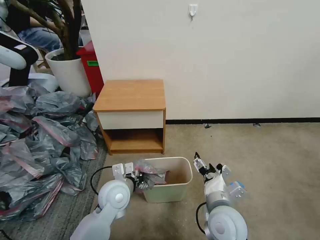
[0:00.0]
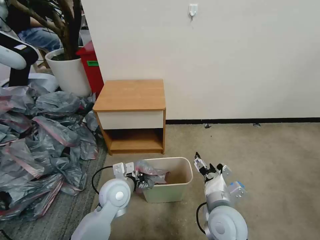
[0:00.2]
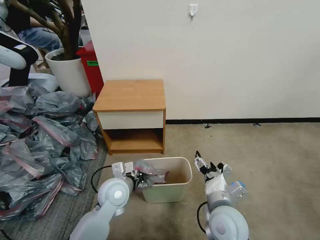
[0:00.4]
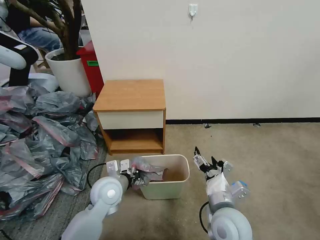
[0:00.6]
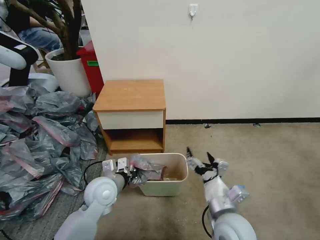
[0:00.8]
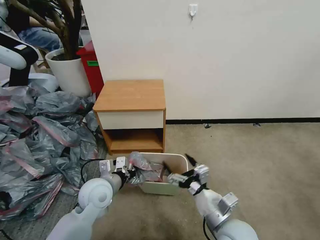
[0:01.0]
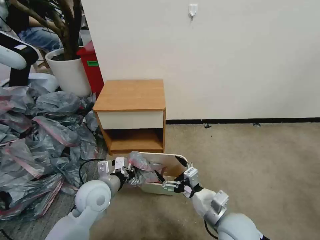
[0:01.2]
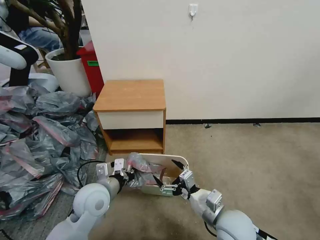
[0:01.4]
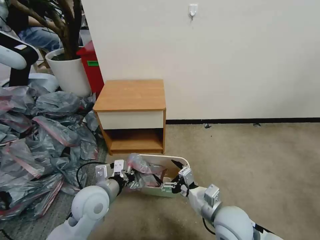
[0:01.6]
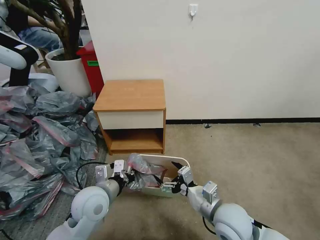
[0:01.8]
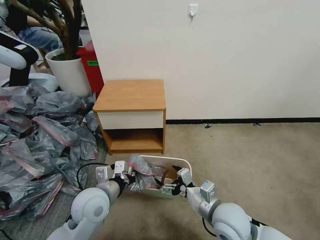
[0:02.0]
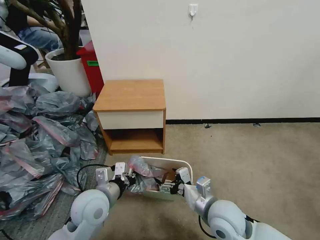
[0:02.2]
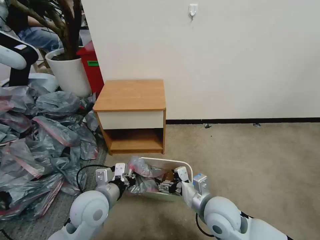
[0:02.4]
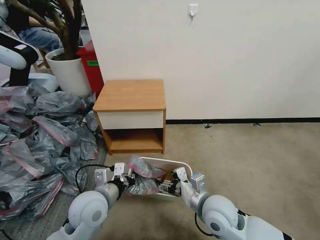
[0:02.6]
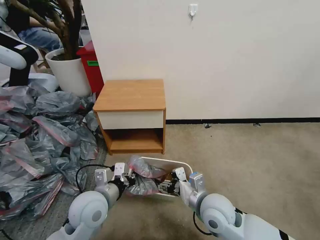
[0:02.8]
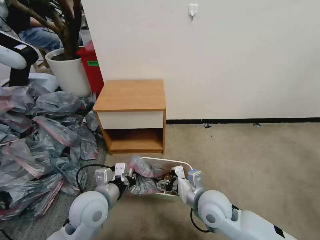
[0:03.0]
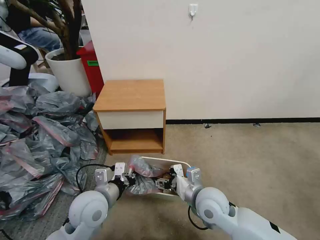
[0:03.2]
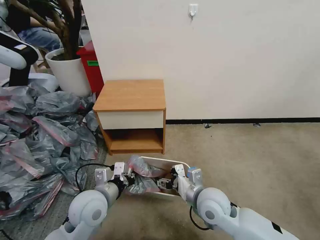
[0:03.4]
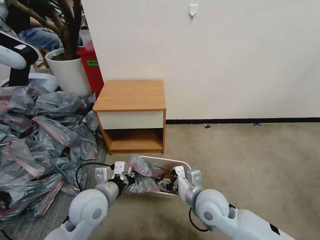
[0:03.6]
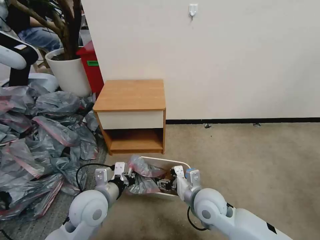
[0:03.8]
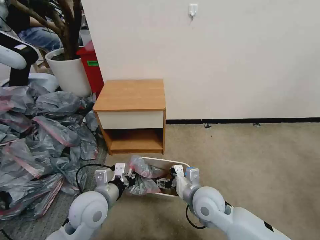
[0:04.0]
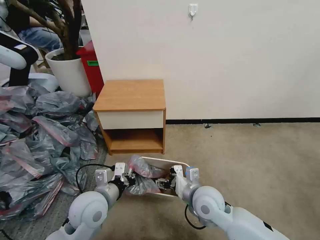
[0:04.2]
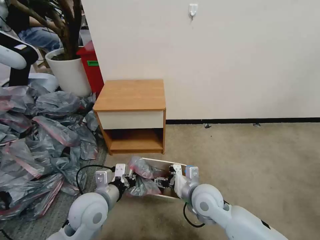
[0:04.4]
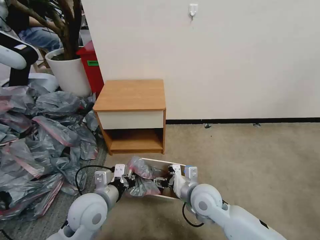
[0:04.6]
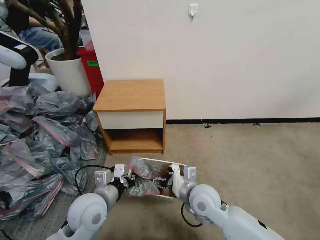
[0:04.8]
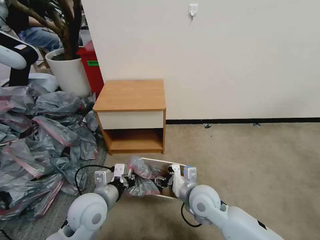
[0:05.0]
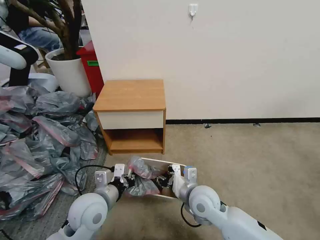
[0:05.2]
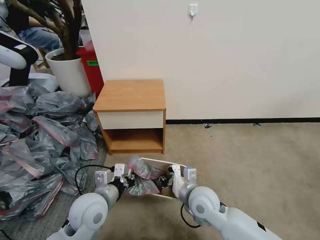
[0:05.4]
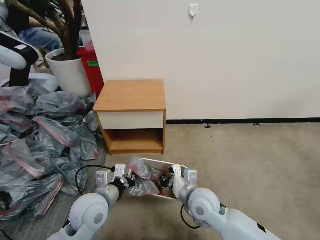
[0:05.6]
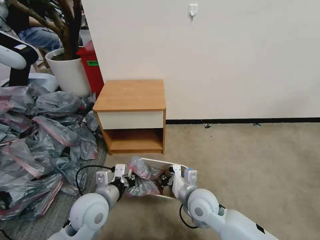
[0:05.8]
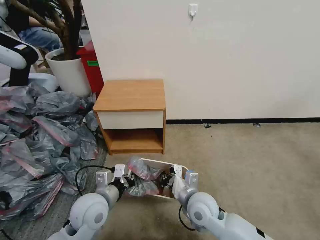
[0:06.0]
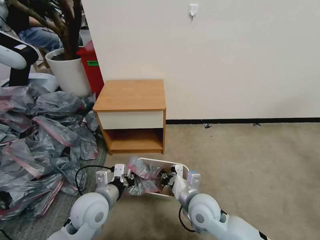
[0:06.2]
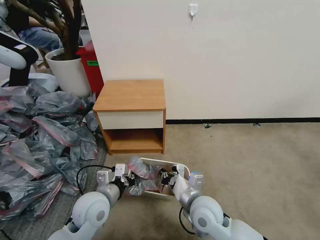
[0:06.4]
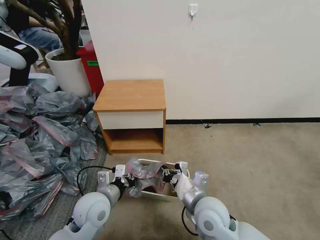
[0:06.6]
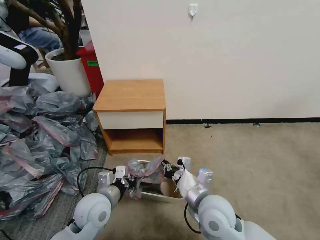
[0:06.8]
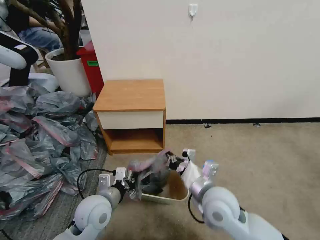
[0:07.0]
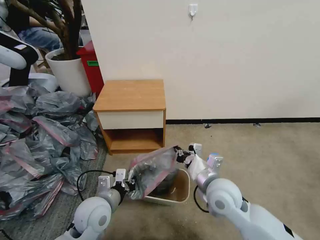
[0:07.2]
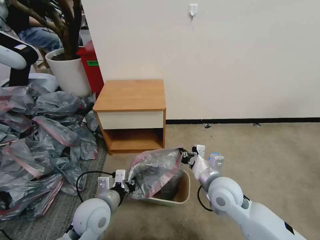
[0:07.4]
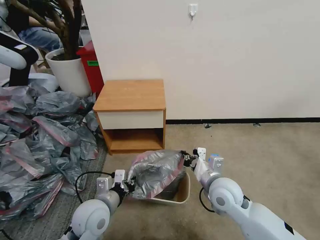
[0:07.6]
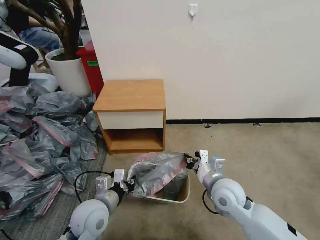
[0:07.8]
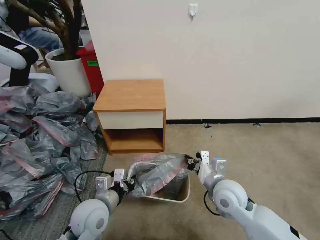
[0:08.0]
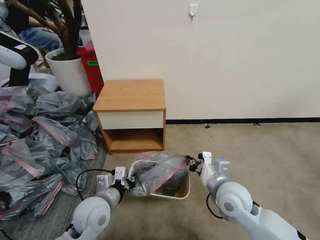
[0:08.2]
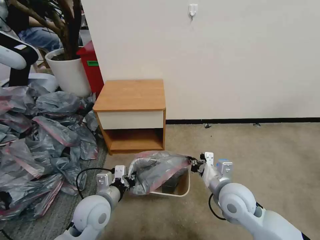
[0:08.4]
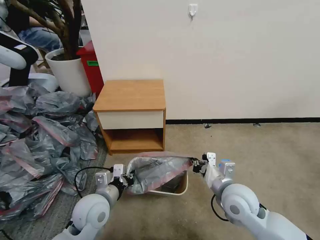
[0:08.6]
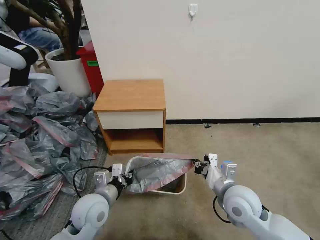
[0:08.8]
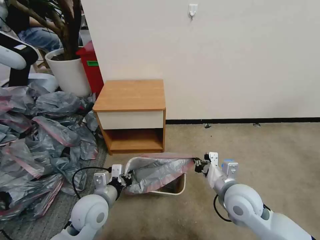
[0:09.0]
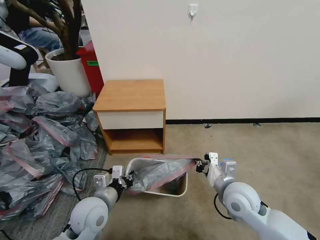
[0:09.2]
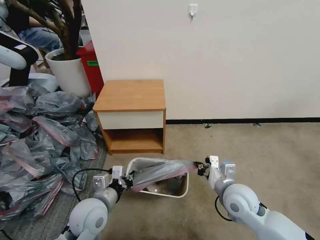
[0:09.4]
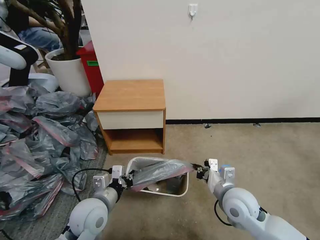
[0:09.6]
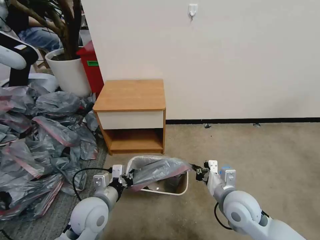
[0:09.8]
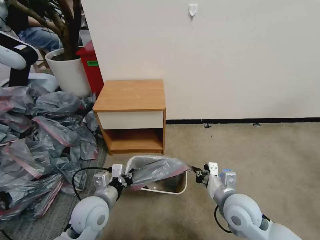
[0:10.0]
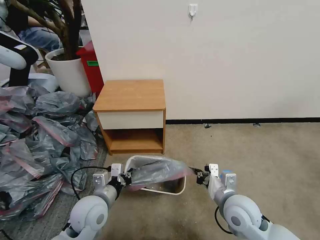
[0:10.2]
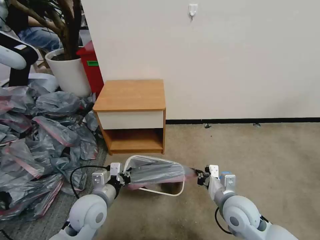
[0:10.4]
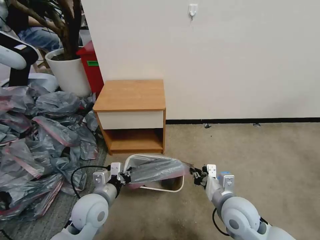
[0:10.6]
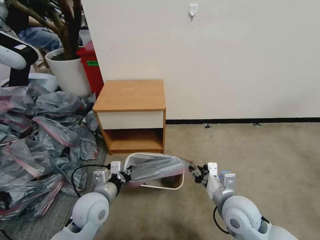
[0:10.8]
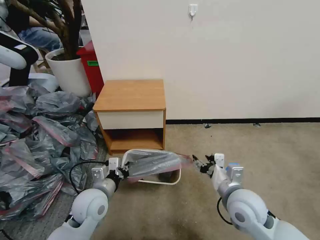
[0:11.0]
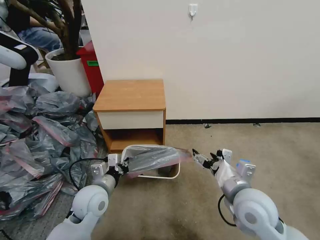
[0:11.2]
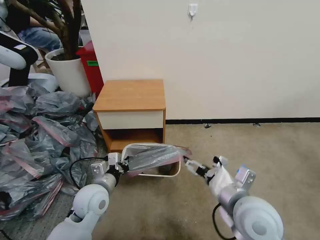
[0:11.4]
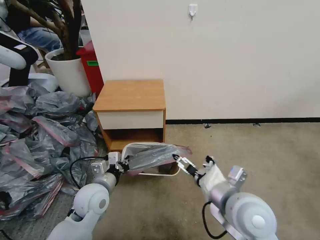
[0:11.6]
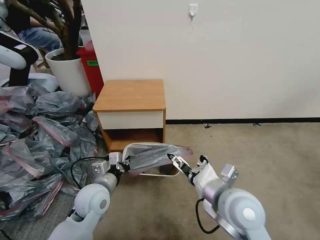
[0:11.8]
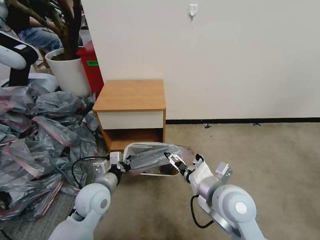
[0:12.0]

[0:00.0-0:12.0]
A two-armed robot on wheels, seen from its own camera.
Task of the whole recording: Pick up the garbage bag from the table and place it over the trash can.
0:00.0 to 0:01.6: The left gripper shifts about 5 cm to the left.
0:01.6 to 0:03.0: The right gripper moves roughly 5 cm.
0:03.0 to 0:04.4: The grippers make only small movements.
0:04.4 to 0:06.0: The right gripper closes its fingers.
0:06.0 to 0:07.6: The right gripper heads to the right, covering roughly 5 cm.
0:07.6 to 0:09.0: The grippers make only small movements.
0:09.0 to 0:10.4: There are only small adjustments of the grippers.
0:10.4 to 0:12.0: The right gripper goes about 10 cm upward and to the left, and opens.

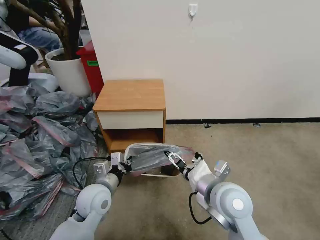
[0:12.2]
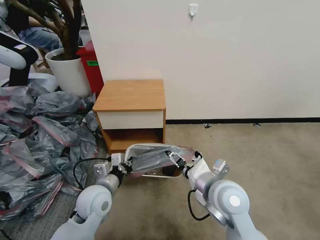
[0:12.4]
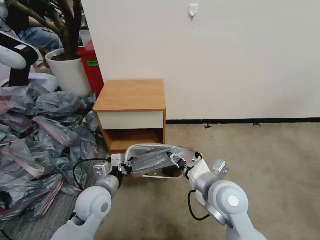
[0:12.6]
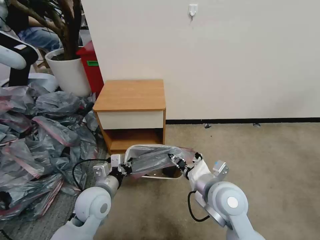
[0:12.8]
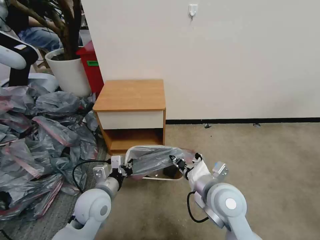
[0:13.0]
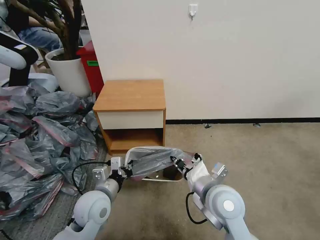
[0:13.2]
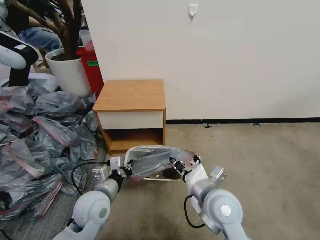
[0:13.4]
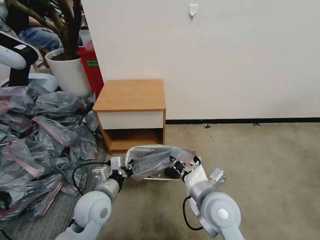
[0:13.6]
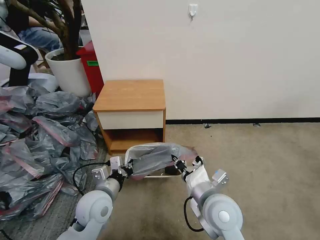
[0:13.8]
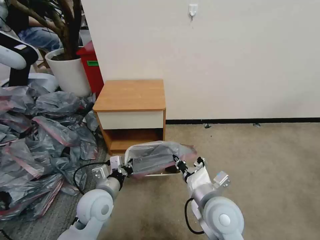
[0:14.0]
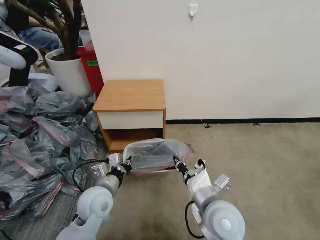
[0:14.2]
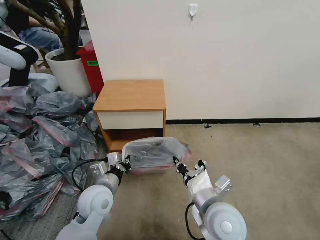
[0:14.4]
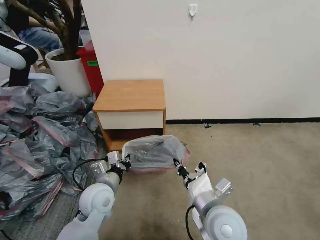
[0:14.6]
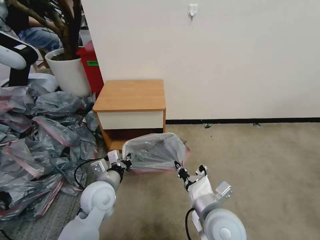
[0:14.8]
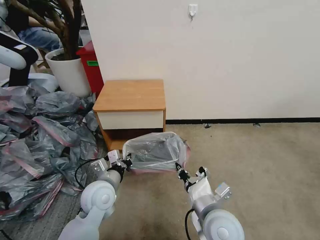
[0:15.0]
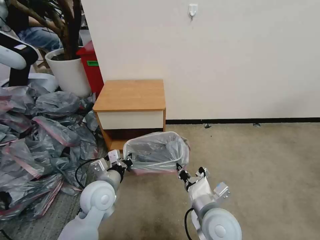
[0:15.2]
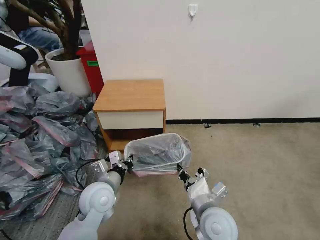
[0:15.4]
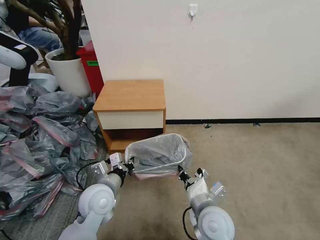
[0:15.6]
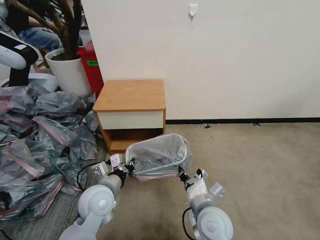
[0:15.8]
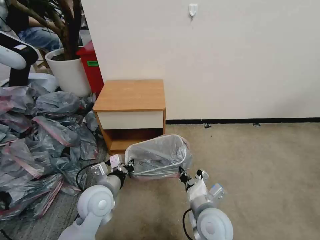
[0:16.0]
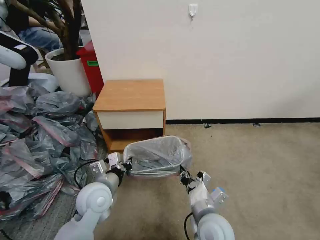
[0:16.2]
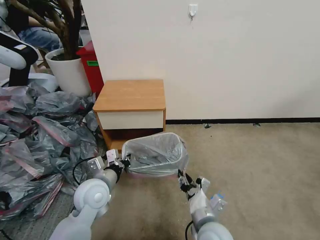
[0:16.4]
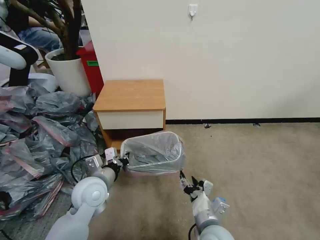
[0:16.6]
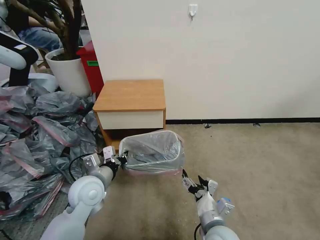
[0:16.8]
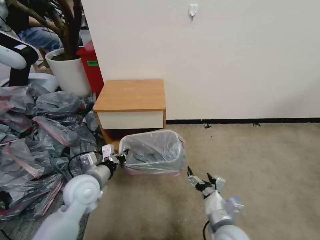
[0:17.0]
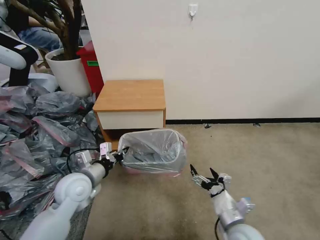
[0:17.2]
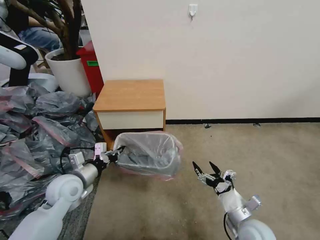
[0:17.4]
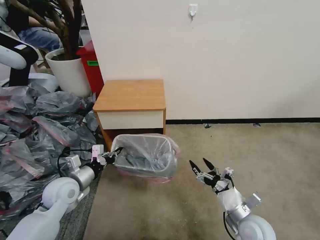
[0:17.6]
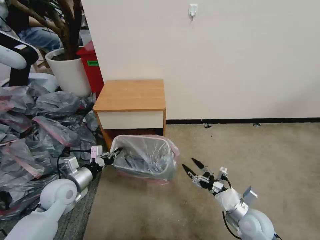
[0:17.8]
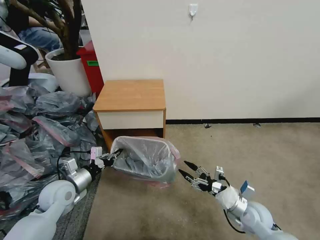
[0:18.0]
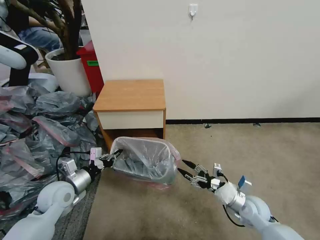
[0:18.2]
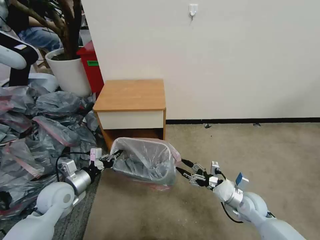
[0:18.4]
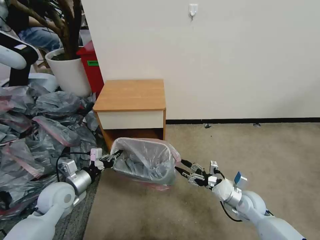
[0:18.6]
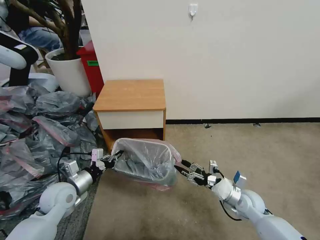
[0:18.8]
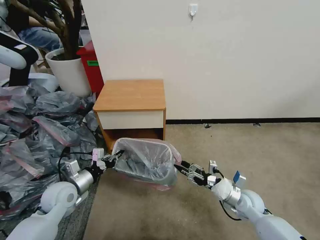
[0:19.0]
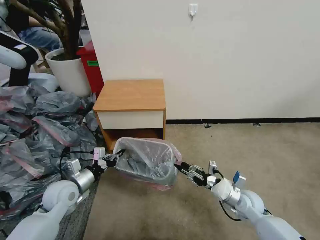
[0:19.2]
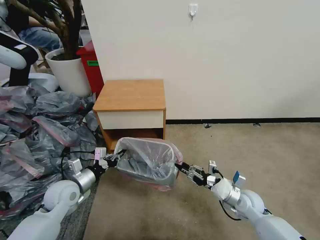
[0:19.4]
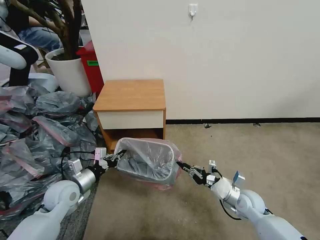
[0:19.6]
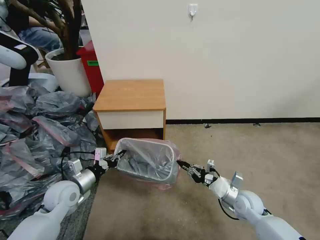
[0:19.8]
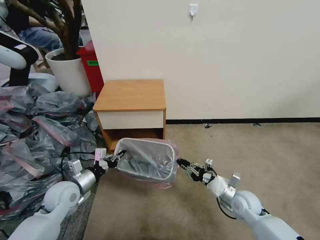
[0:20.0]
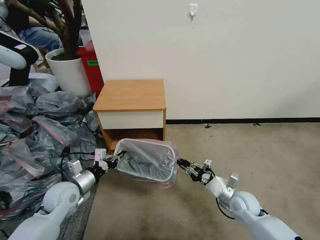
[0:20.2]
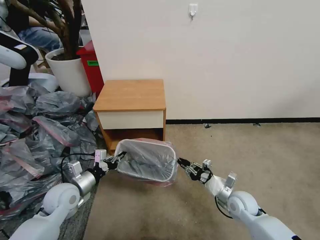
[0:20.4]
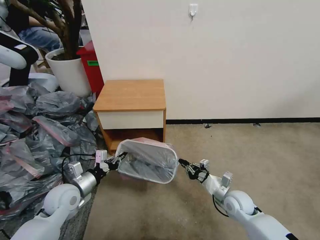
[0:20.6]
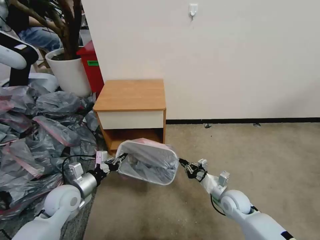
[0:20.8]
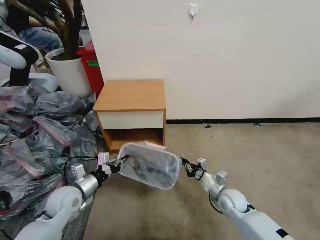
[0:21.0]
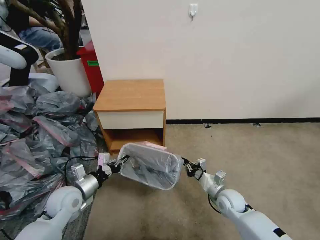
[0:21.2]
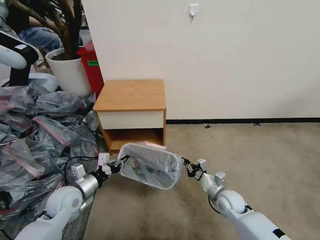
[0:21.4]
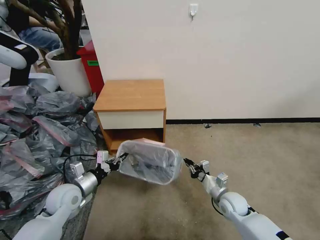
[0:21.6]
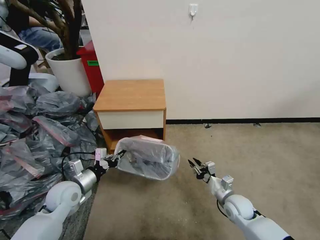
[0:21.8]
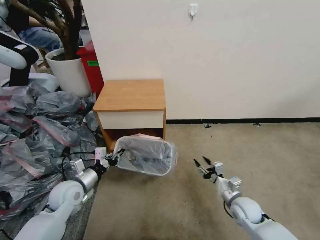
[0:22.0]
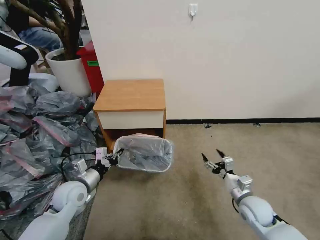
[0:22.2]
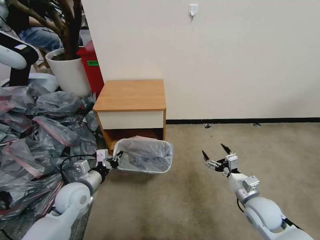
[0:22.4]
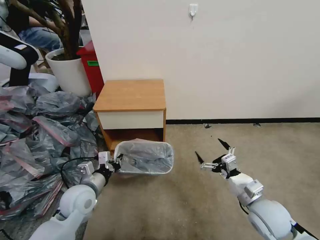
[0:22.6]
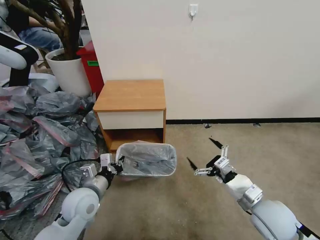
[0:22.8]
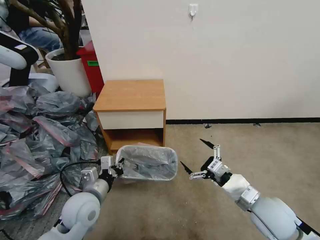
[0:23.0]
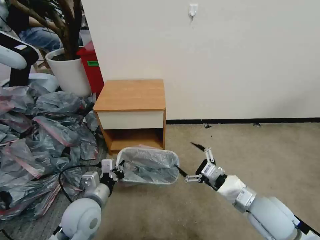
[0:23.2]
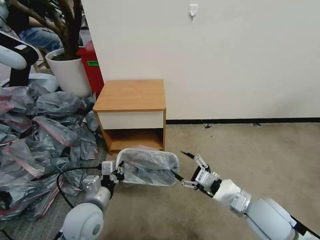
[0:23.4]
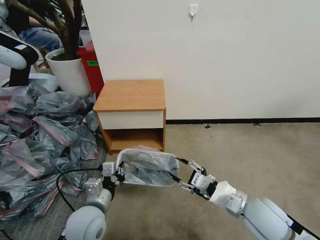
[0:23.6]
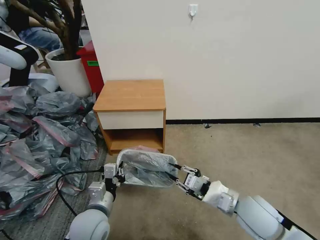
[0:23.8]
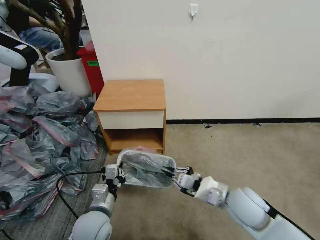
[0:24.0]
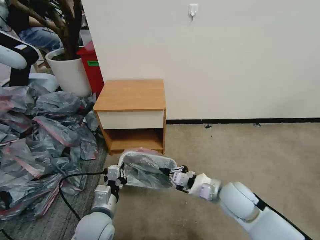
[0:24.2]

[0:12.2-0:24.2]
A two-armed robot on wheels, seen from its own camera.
Task of the whole recording: Pick up the garbage bag from the table and place it over the trash can.
0:12.2 to 0:13.8: The right gripper closes up.
0:13.8 to 0:15.2: The grippers make only small movements.
0:15.2 to 0:16.6: The right gripper goes some 5 cm downward, and opens up.
0:16.6 to 0:18.2: The left gripper goes approximately 10 cm to the left. The right gripper moves to the right and forward, about 20 cm.
0:18.2 to 0:19.8: The right gripper closes up.
0:19.8 to 0:21.2: The right gripper changes place by roughly 5 cm.
0:21.2 to 0:22.6: The right gripper travels upward and backward by approximately 15 cm, and opens up. The left gripper ends up about 5 cm from where it was.
0:22.6 to 0:24.2: The right gripper goes about 10 cm to the left, and closes its fingers. The left gripper shifts some 10 cm backward and to the right.
